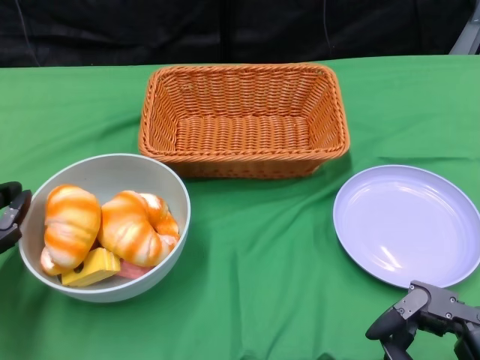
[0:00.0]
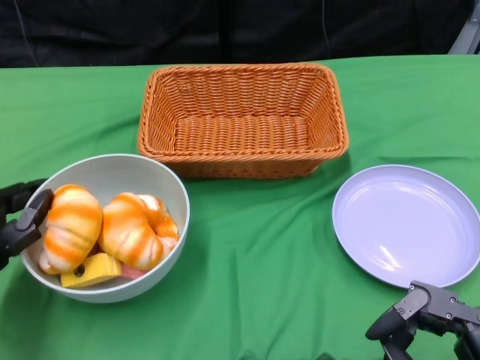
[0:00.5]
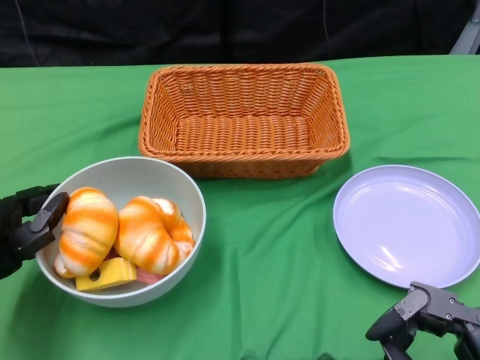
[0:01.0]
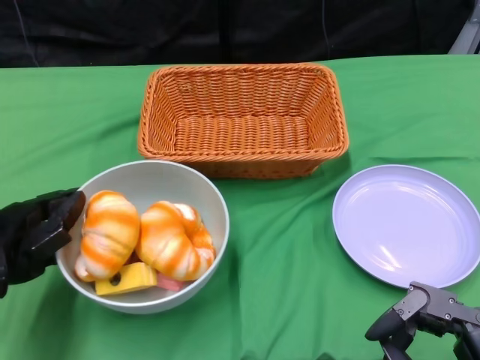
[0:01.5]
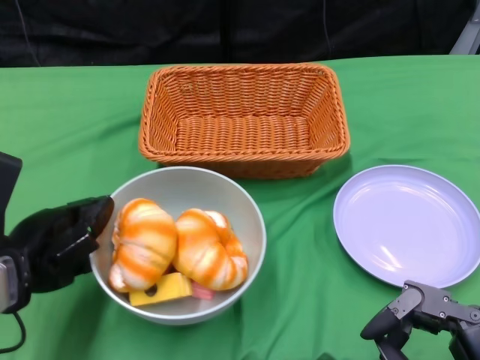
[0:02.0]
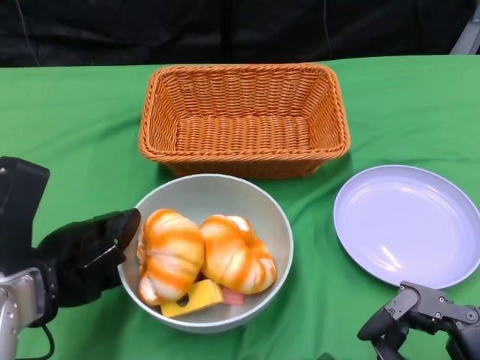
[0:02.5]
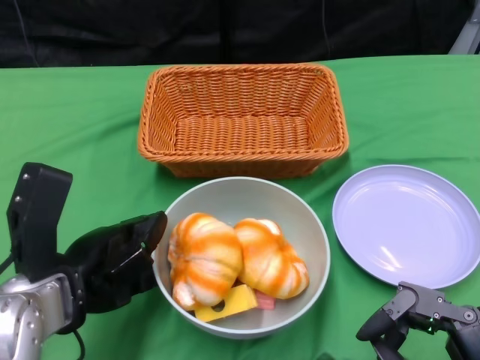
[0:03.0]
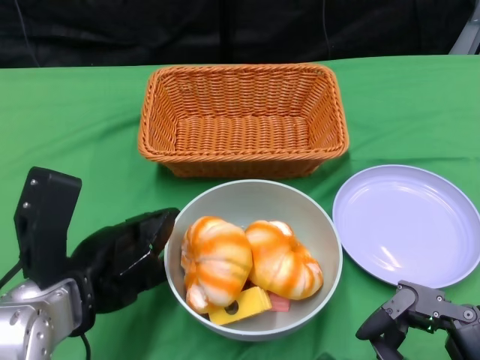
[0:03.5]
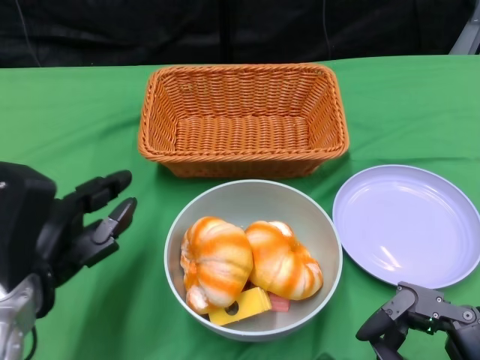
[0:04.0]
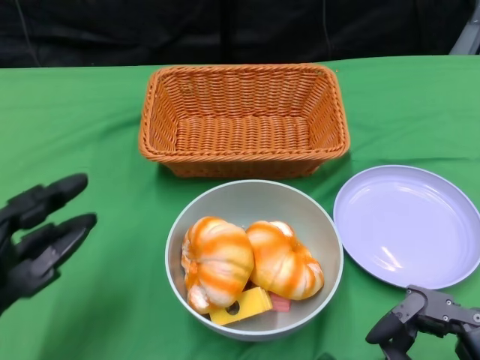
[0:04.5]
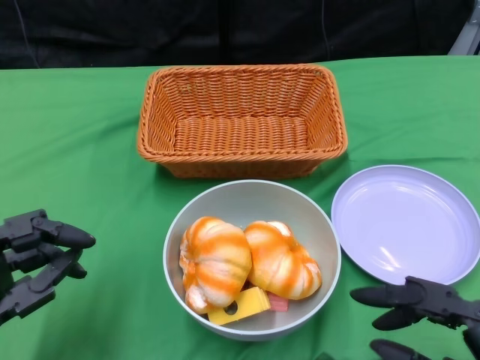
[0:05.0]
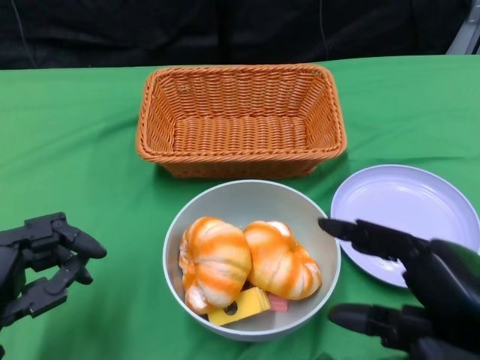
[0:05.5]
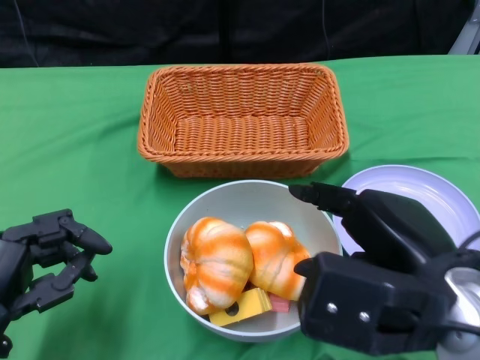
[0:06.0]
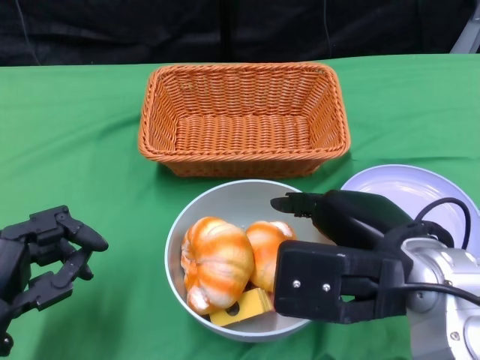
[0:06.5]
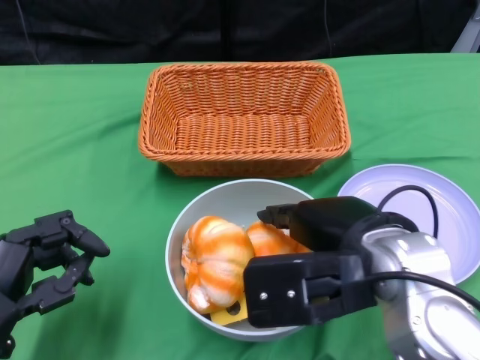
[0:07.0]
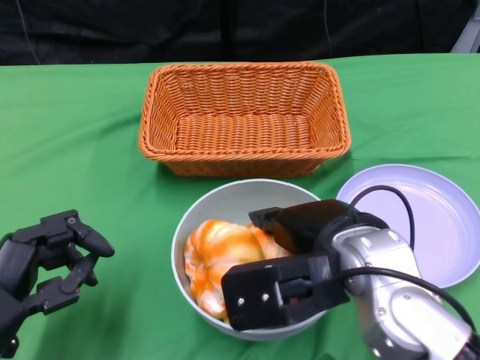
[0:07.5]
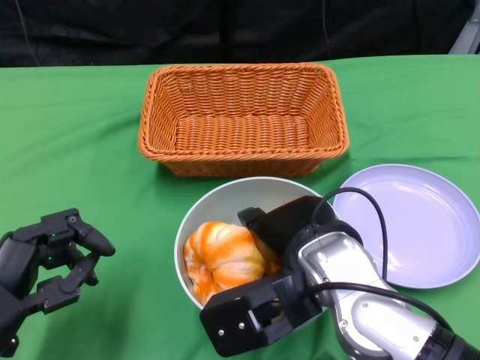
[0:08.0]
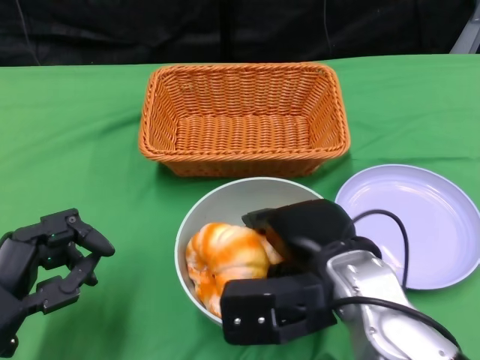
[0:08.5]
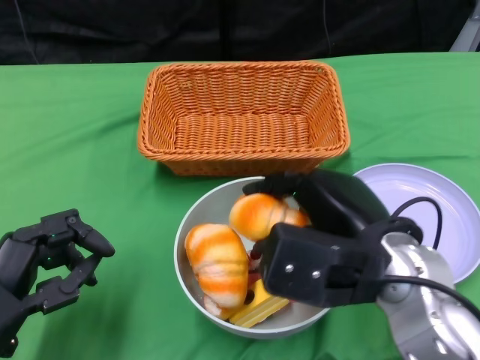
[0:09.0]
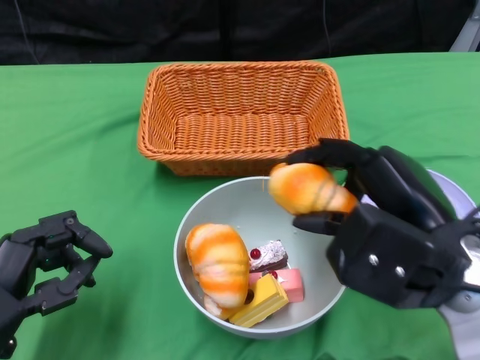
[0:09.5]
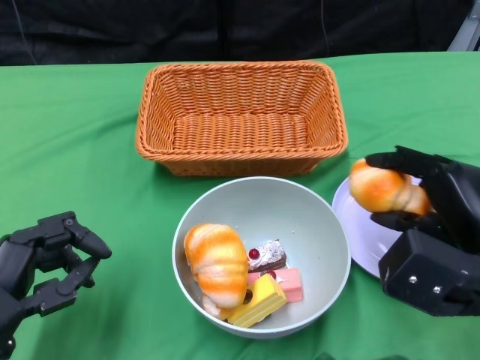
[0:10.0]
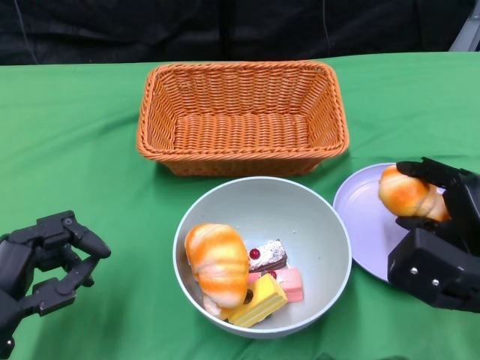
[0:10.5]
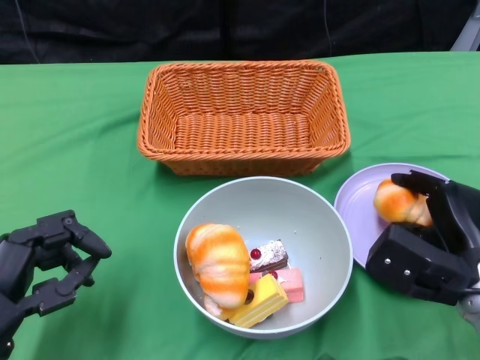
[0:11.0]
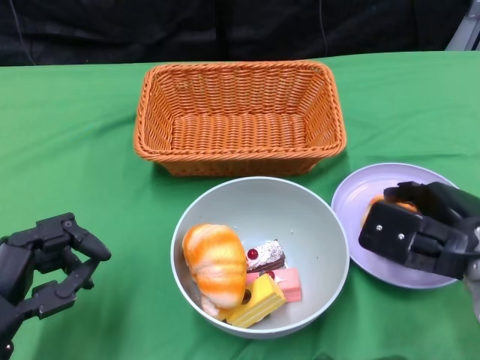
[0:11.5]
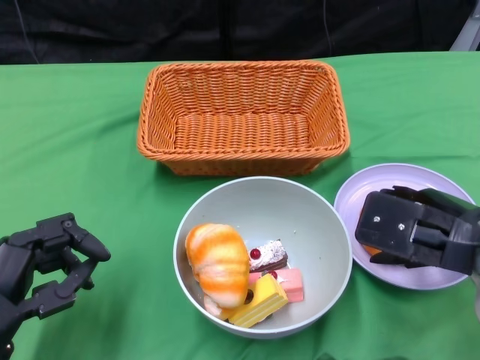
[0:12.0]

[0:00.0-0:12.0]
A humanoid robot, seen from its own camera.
Step, 0:00.0 to 0:03.0: Push the bowl to the center of the table using the left gripper.
0:00.0 to 0:02.0: The left hand heads to the right, covering about 5 cm.
0:04.0 to 0:06.0: The right hand goes about 15 cm upward, forward and to the left, while the left hand shifts by roughly 5 cm.
0:06.0 to 0:08.0: The right hand shifts approximately 10 cm to the left and forward.
0:08.0 to 0:10.0: The right hand heads to the right, covering roughly 15 cm.
0:10.0 to 0:12.0: The right hand moves some 5 cm downward and comes back.

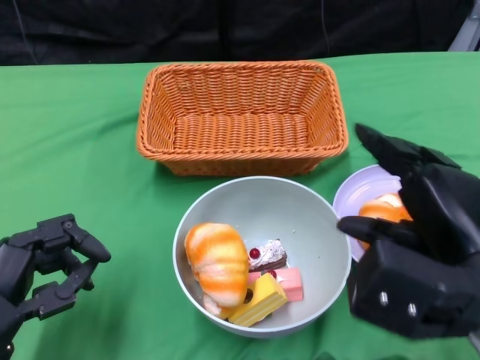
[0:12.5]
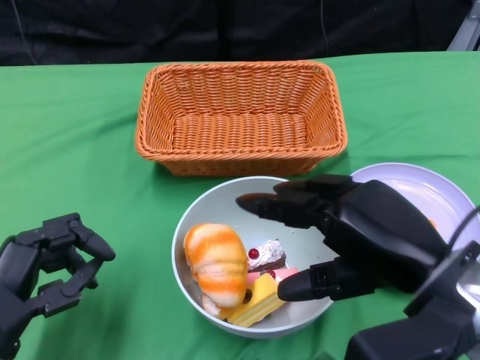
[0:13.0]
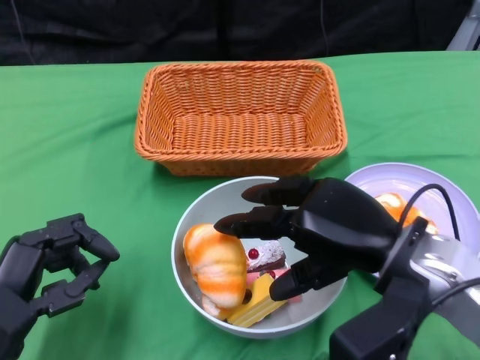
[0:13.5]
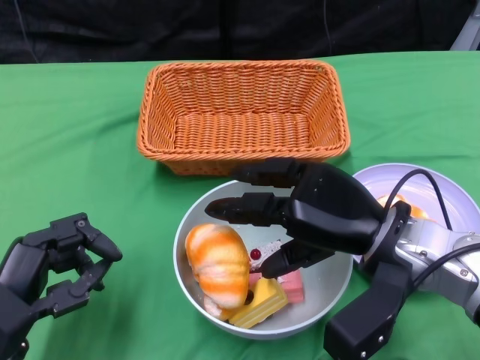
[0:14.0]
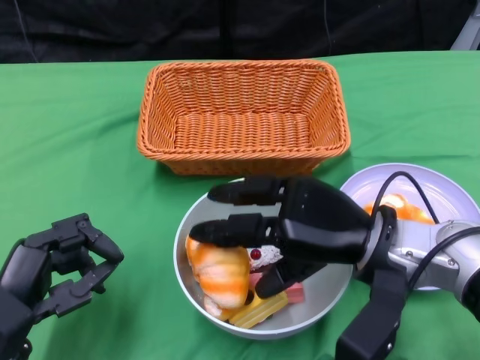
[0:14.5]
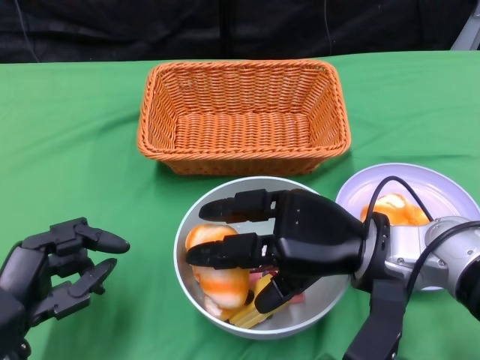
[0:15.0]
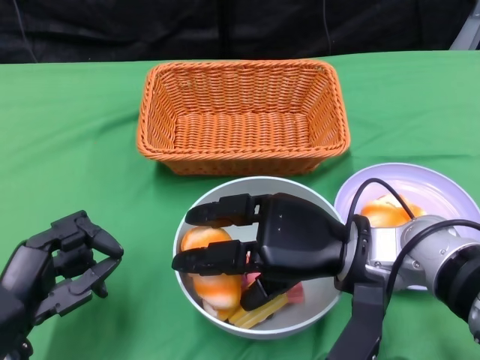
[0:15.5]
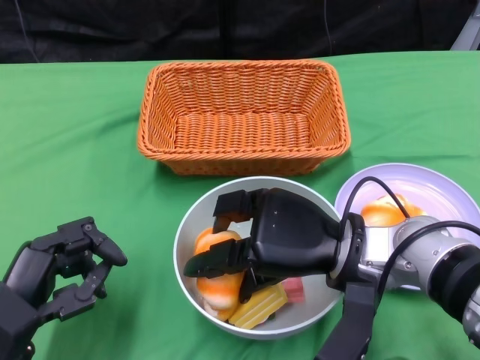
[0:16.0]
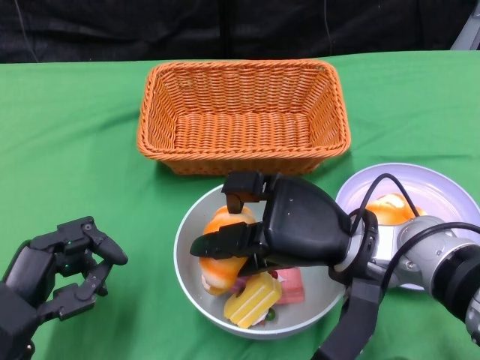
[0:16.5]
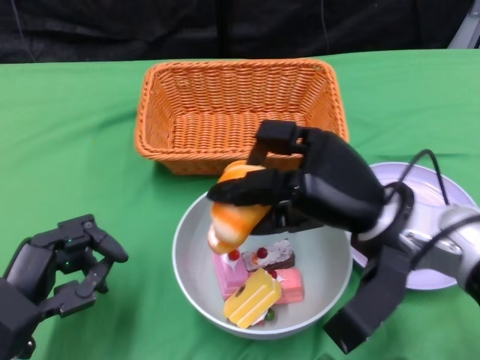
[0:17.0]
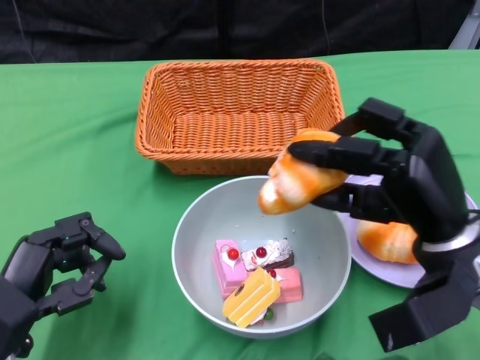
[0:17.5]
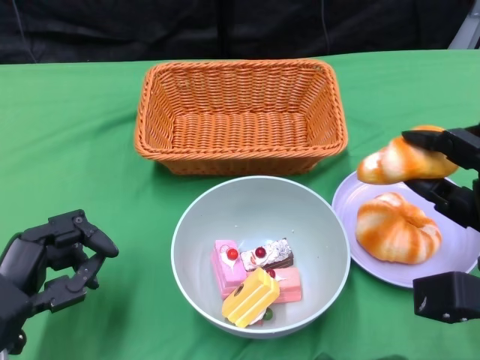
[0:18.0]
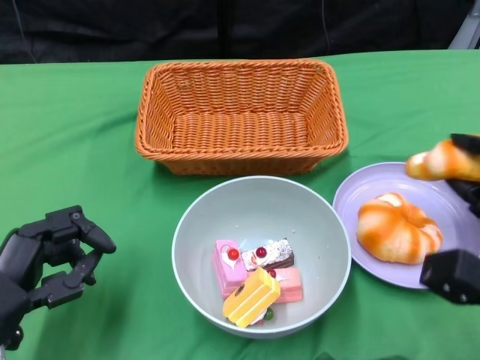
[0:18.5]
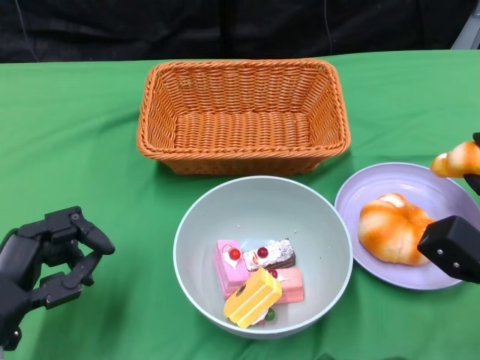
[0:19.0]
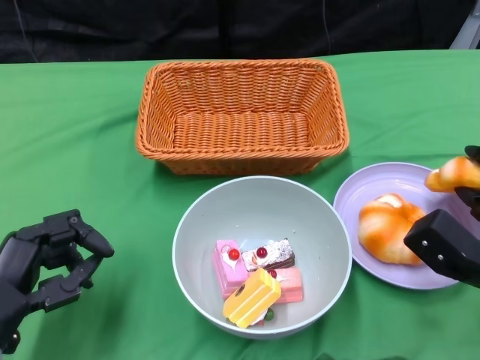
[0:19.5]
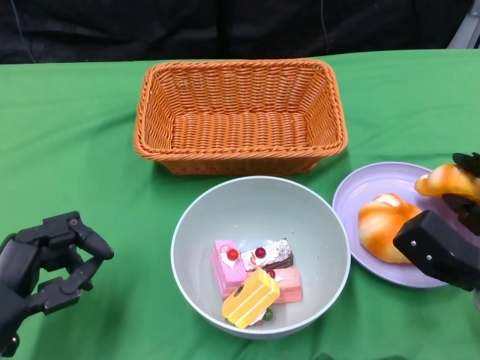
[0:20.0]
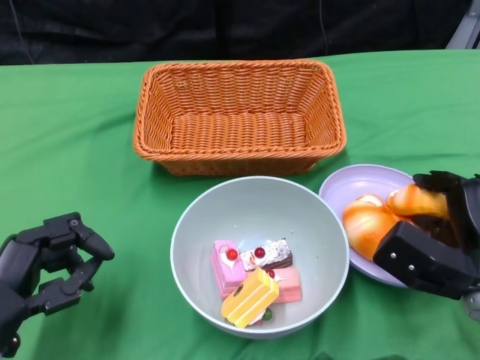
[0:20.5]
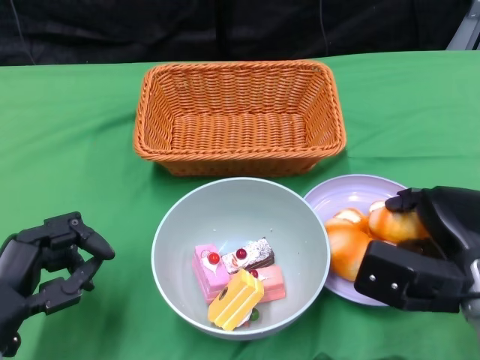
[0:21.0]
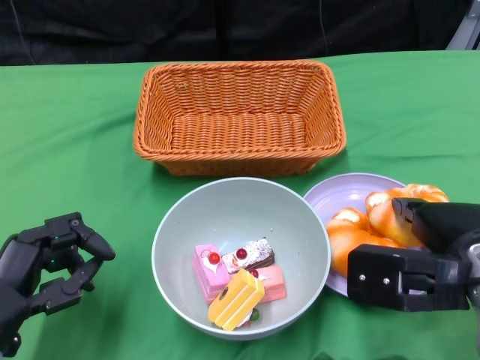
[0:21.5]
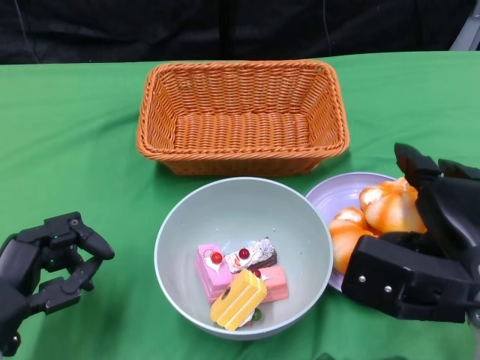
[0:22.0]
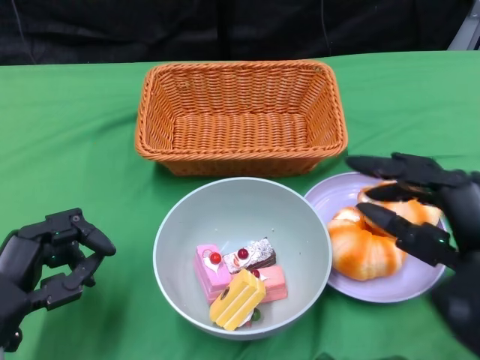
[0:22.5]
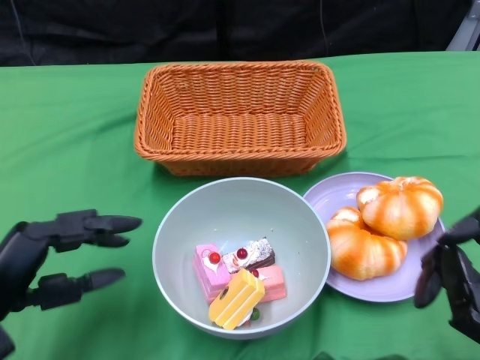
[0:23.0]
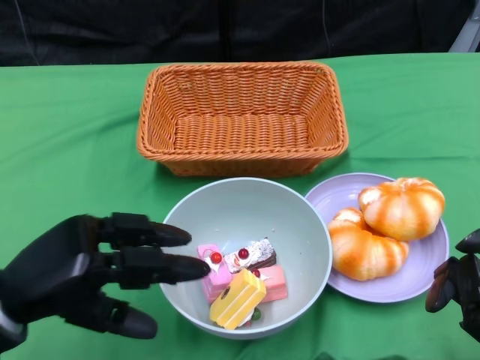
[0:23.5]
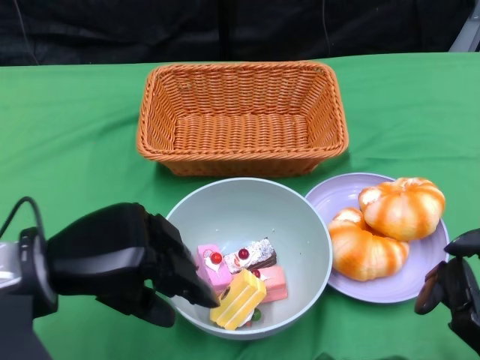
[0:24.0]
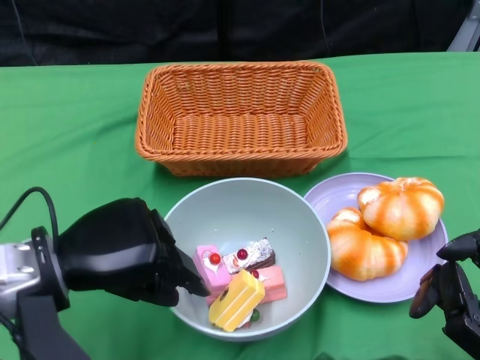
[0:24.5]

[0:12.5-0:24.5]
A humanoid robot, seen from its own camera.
Step, 0:12.5 to 0:22.0: Pick up the bread with the right gripper and place it on the plate.
0:12.5 to 0:14.5: The right hand moves forward, to the left and downward, about 10 cm.
0:14.5 to 0:16.5: There are only small adjustments of the hands.
0:16.5 to 0:18.5: The right hand moves to the right, some 15 cm.
0:20.5 to 0:22.5: The right hand is displaced upward and backward by some 15 cm.
0:22.5 to 0:24.5: The left hand shifts approximately 10 cm upward and to the right. Meanwhile the right hand is displaced backward and downward by about 10 cm.

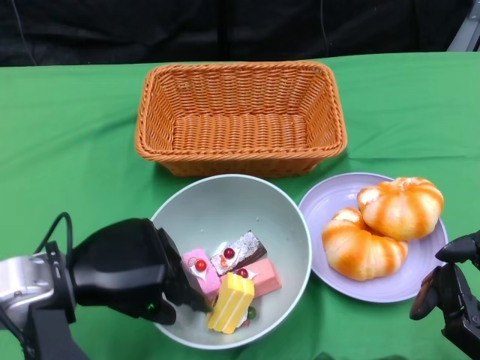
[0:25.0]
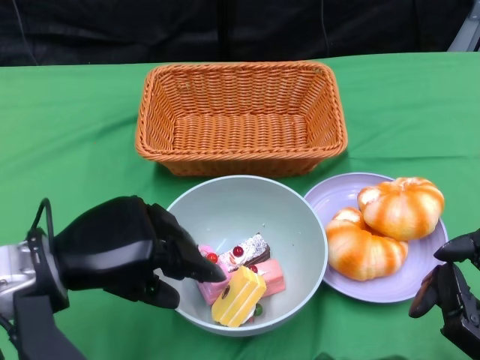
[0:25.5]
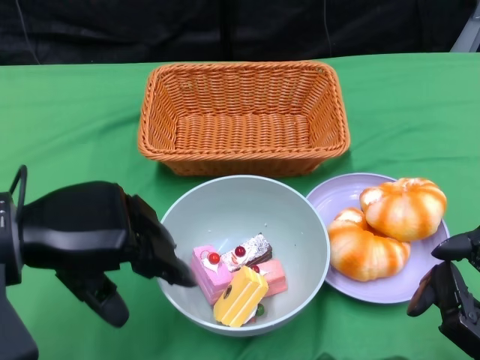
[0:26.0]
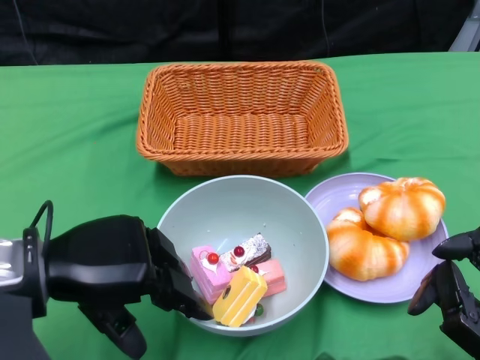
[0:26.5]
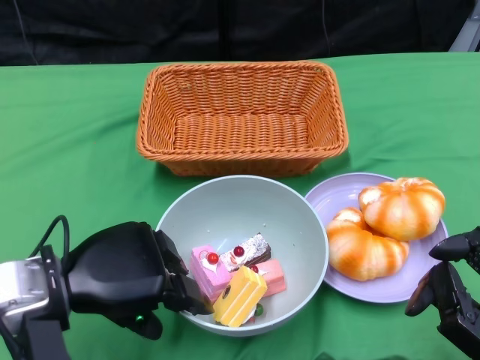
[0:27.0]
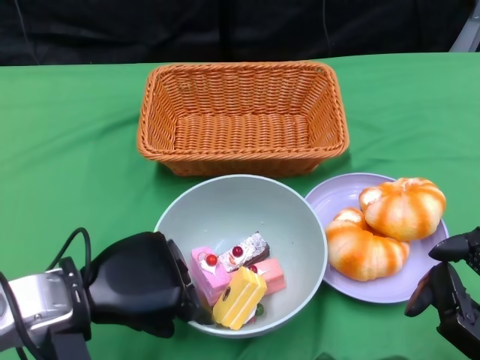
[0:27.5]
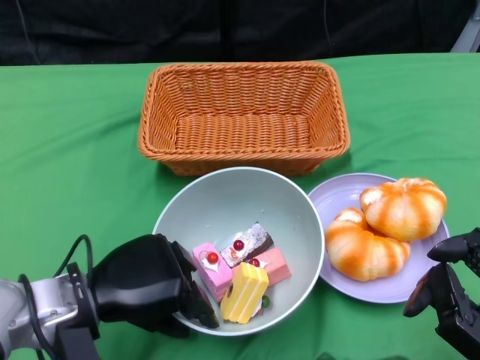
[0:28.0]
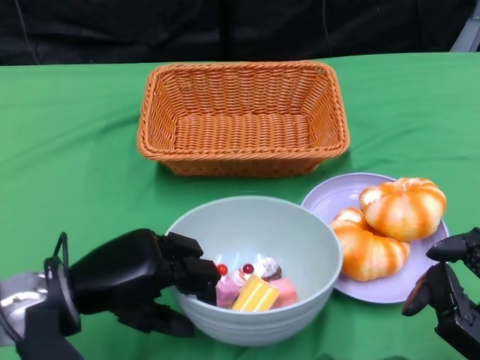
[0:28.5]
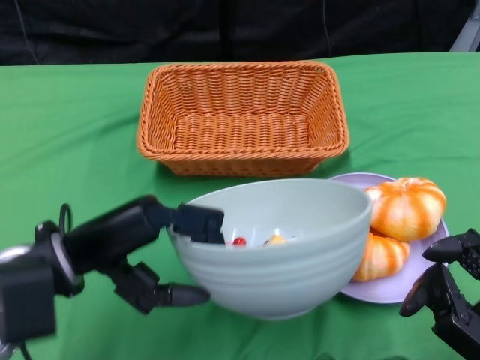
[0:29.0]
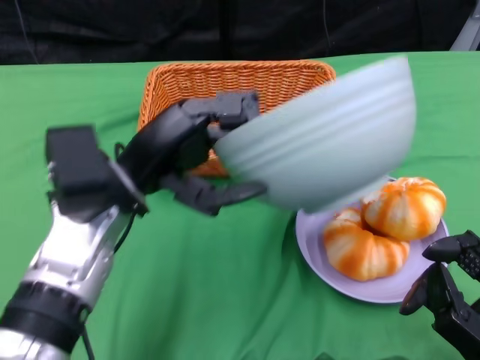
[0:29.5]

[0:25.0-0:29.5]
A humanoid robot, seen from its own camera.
Step, 0:25.0 to 0:28.0: Grasp the bowl with the left gripper.
0:27.0 to 0:29.5: The left hand is displaced to the right, forward and upward by roughly 10 cm.
